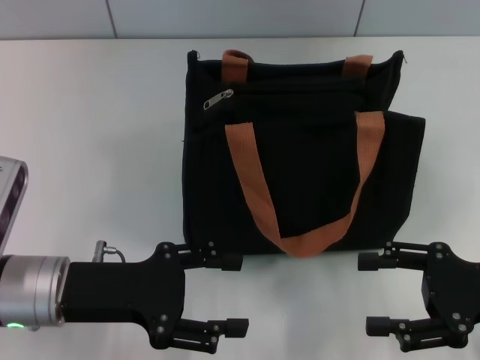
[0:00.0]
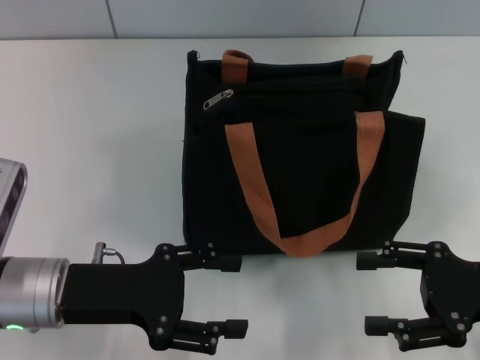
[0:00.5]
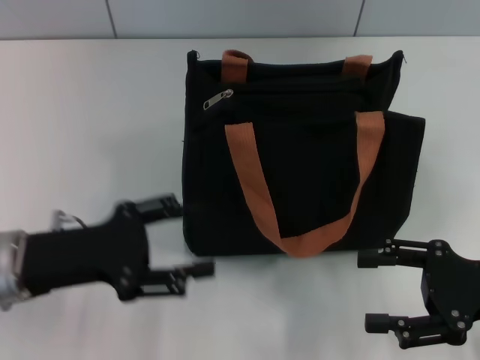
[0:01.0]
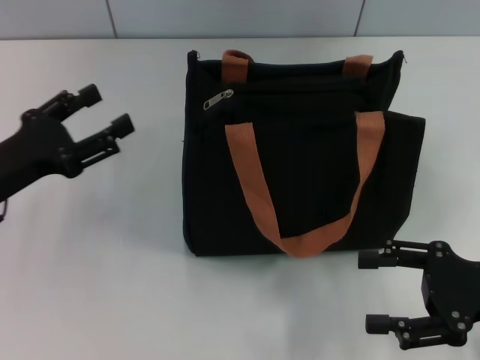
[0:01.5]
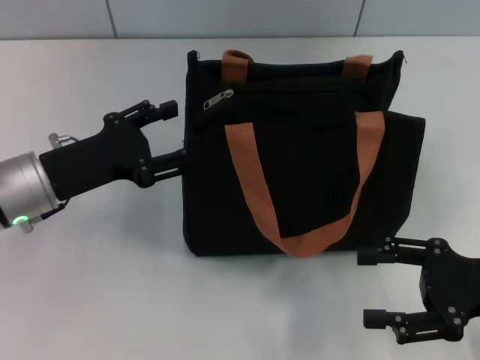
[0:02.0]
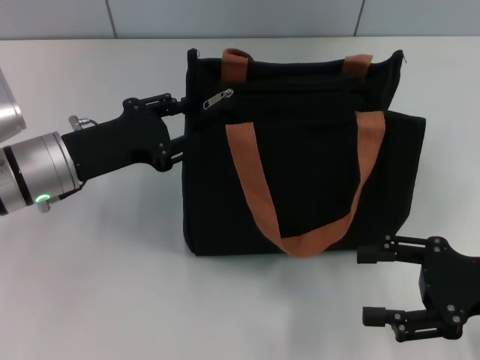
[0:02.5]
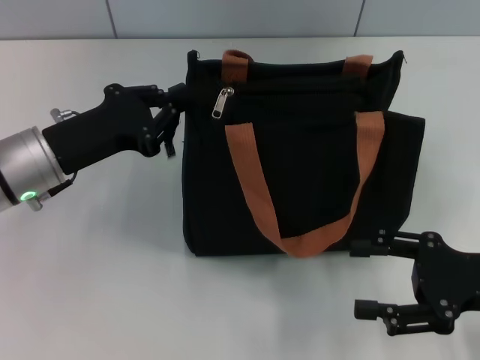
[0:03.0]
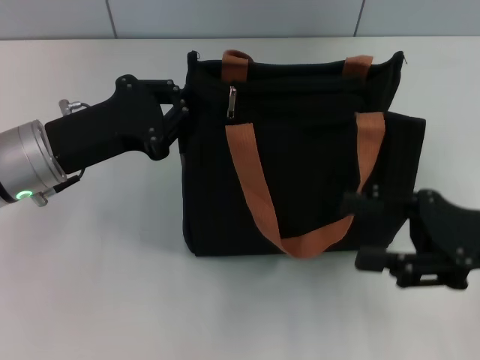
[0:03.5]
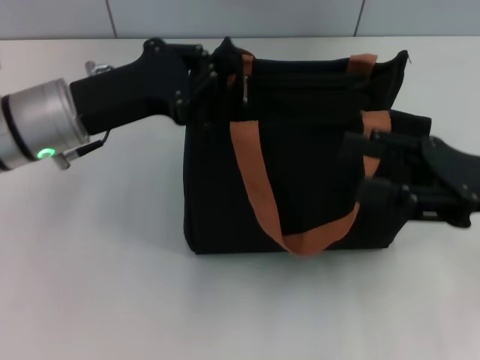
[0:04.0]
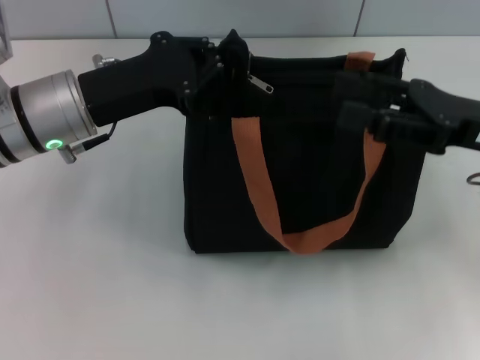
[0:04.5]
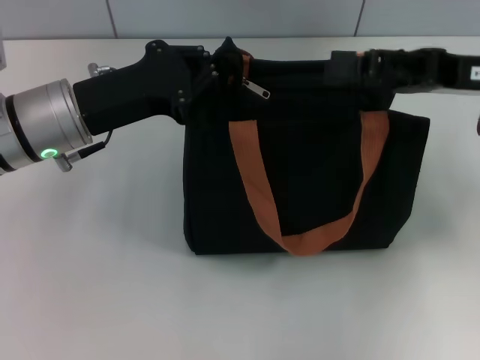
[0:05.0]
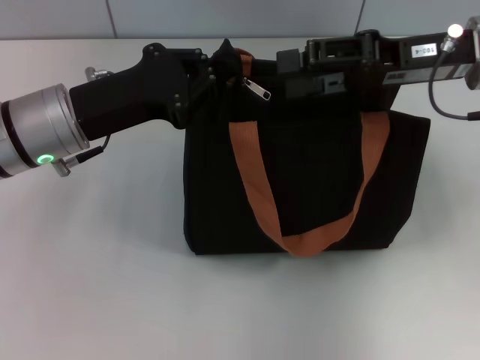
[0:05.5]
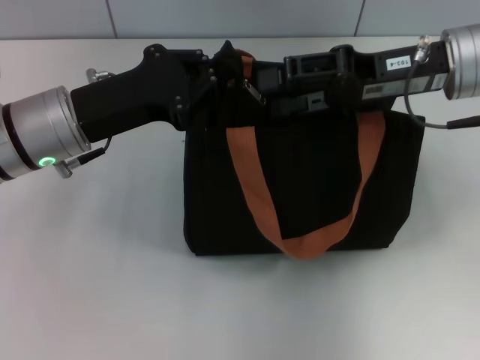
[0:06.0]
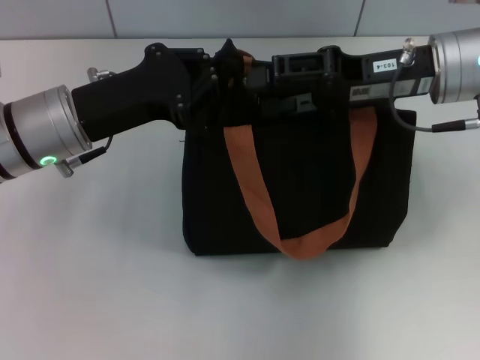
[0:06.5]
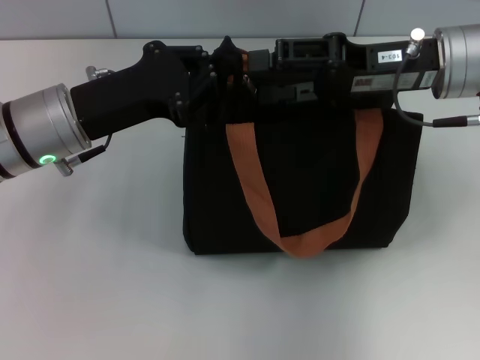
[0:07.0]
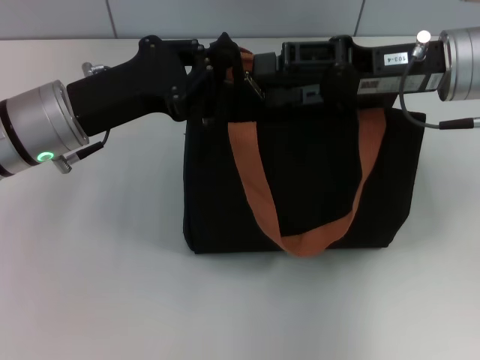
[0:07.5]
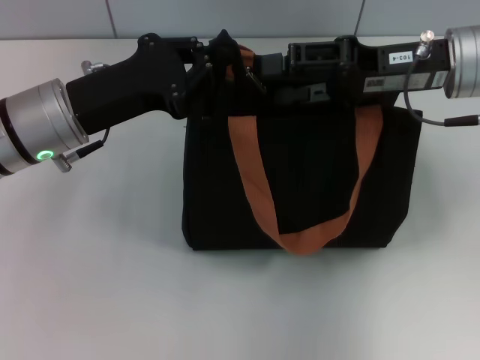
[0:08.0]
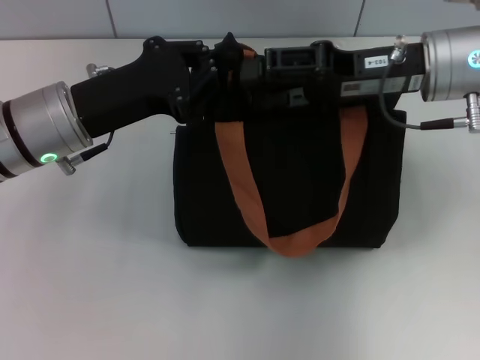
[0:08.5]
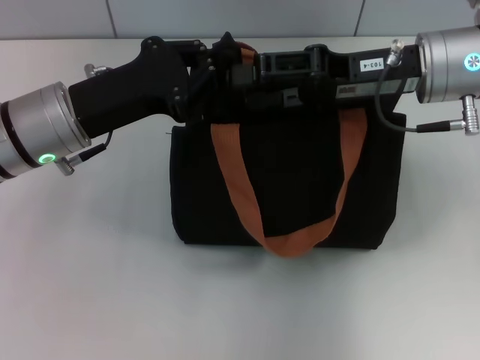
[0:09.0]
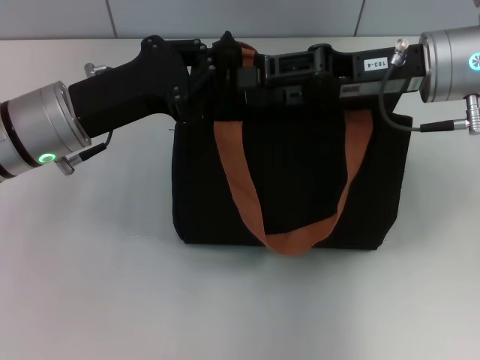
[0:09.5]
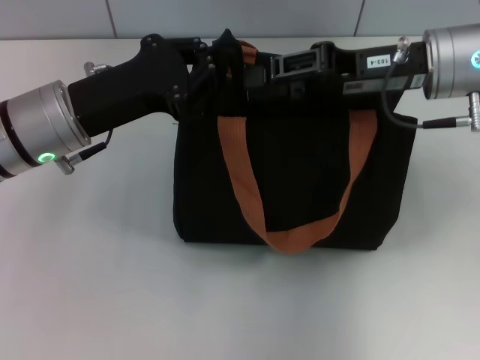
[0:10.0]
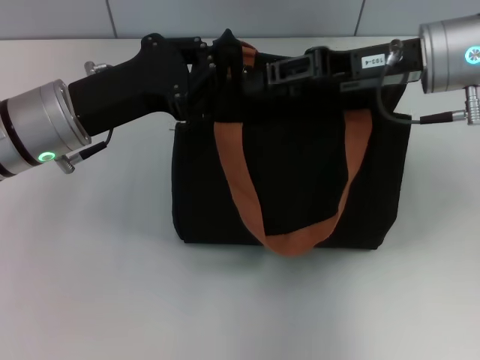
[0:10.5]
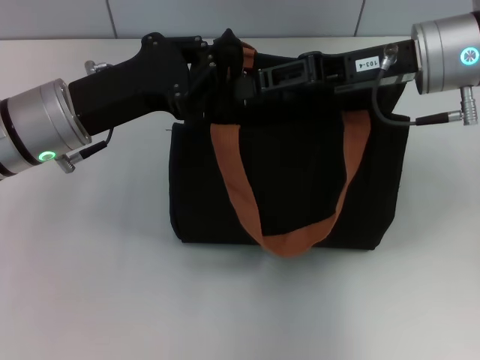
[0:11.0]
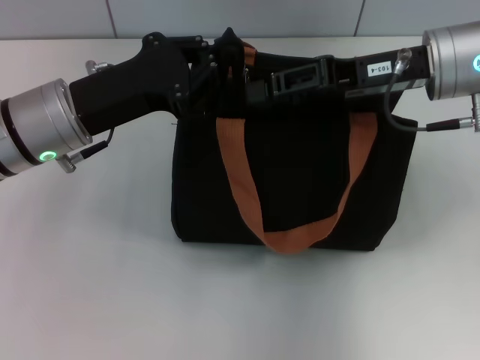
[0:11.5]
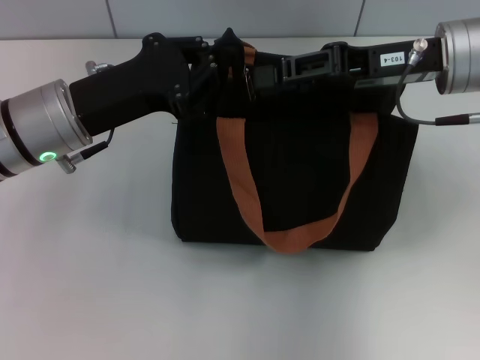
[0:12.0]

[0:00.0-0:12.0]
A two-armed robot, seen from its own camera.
0:00.0 to 0:02.0: The left gripper moves forward, about 5 cm, and moves roughly 10 cm to the left and comes back.
0:02.0 to 0:04.0: Both grippers travel together upward, some 5 cm. The left gripper closes up.
0:04.0 to 0:06.0: The right gripper goes some 15 cm forward, to the left and upward.
0:06.0 to 0:08.0: The grippers make only small movements.
0:08.0 to 0:10.0: The right gripper closes.
0:10.0 to 0:12.0: There are only small adjustments of the grippers.

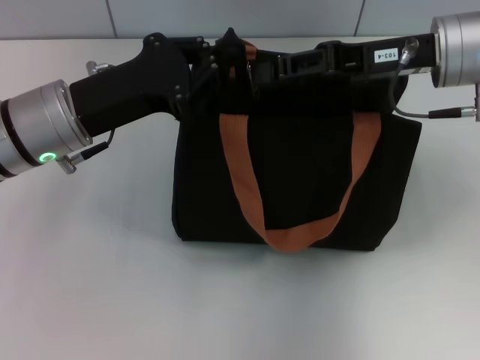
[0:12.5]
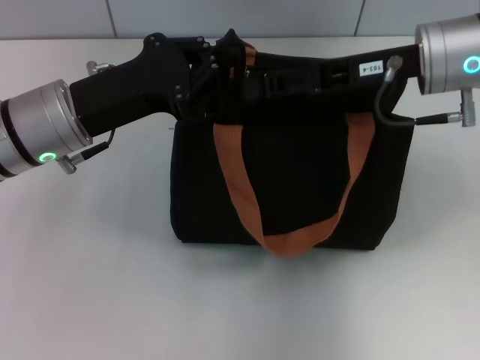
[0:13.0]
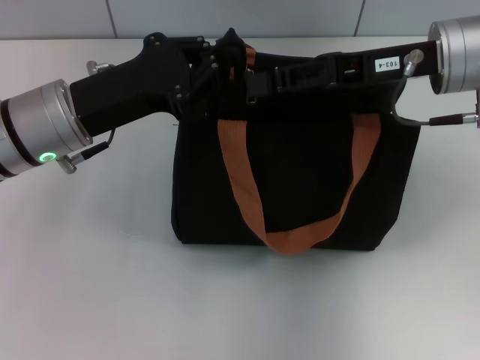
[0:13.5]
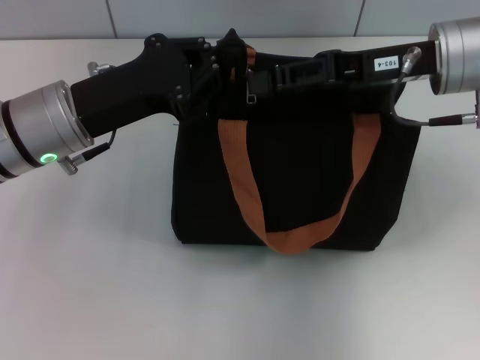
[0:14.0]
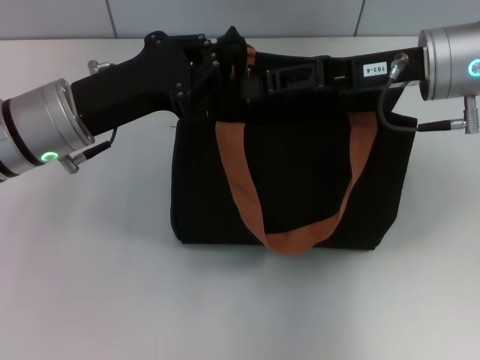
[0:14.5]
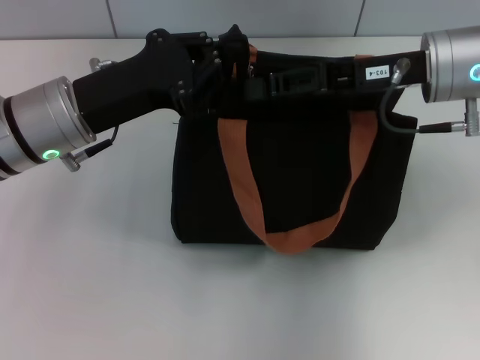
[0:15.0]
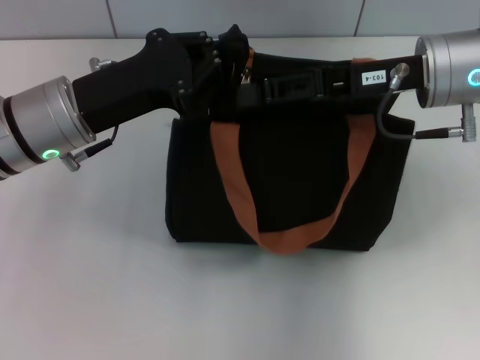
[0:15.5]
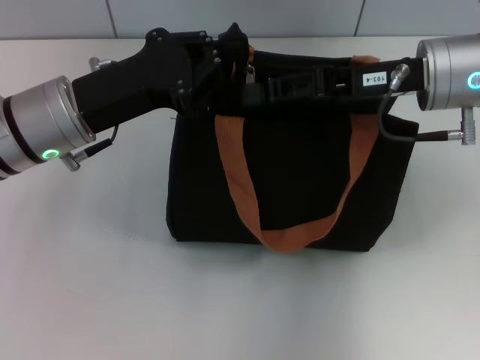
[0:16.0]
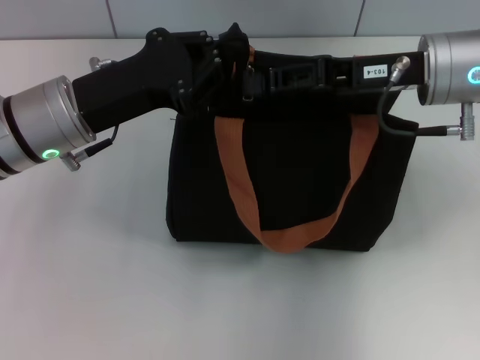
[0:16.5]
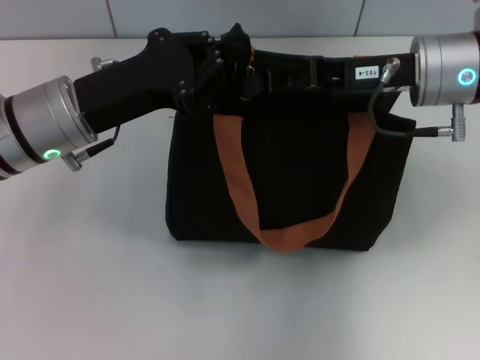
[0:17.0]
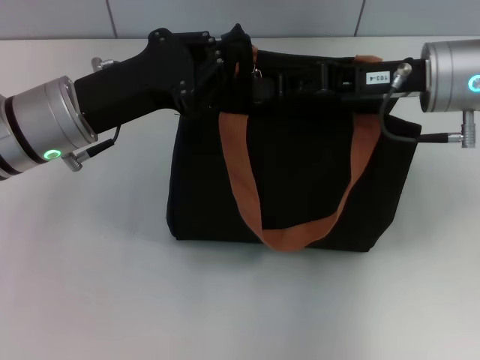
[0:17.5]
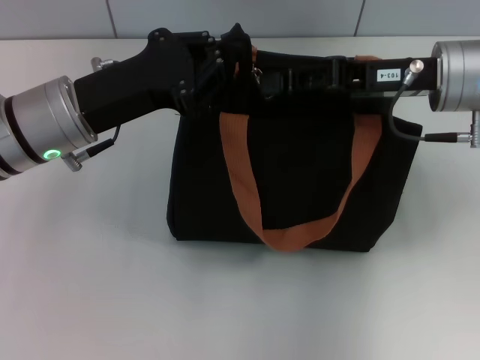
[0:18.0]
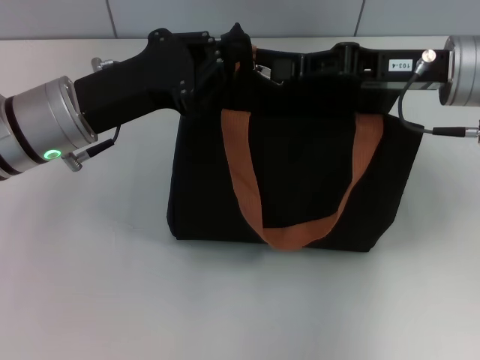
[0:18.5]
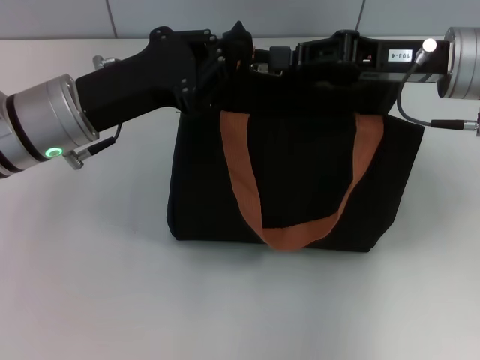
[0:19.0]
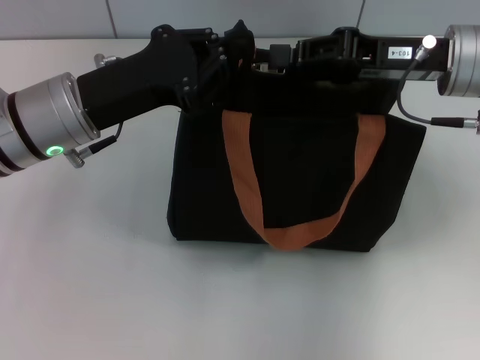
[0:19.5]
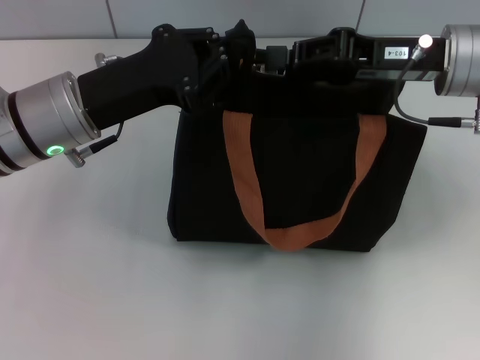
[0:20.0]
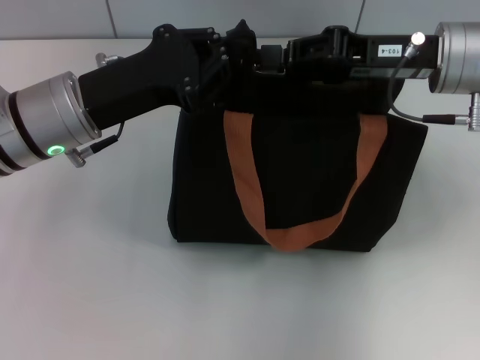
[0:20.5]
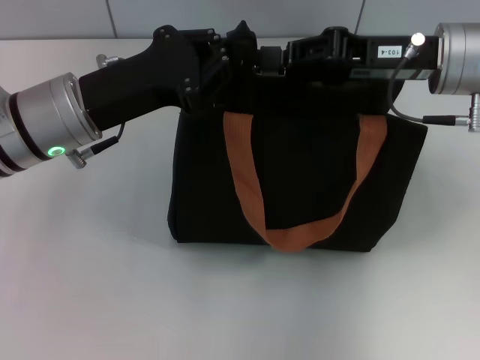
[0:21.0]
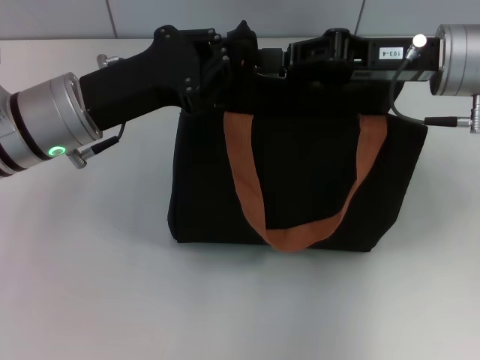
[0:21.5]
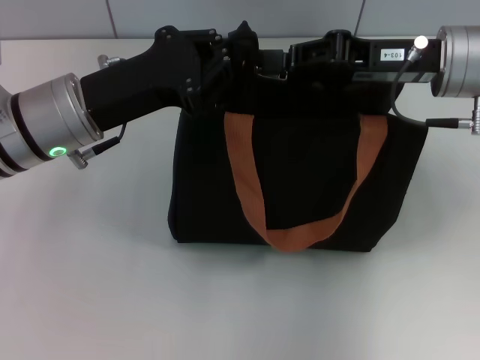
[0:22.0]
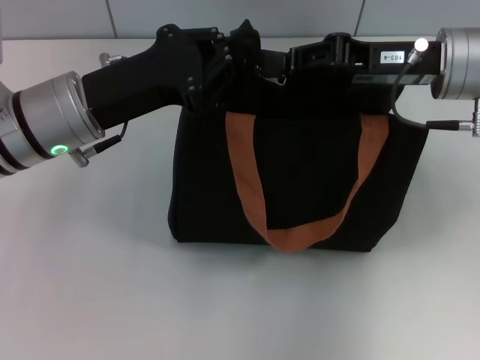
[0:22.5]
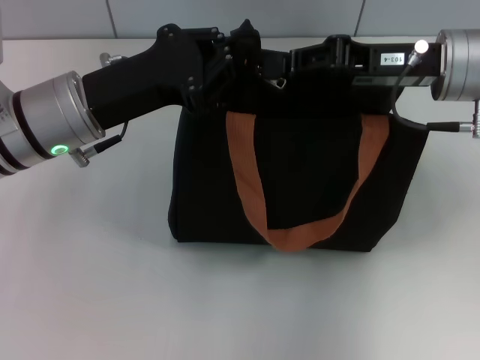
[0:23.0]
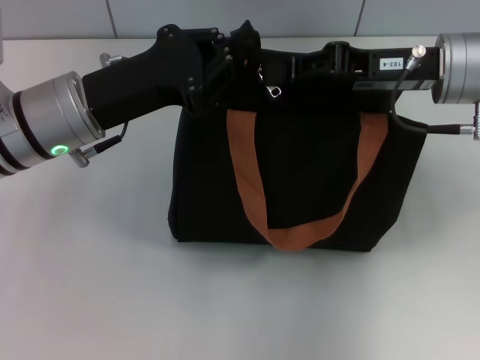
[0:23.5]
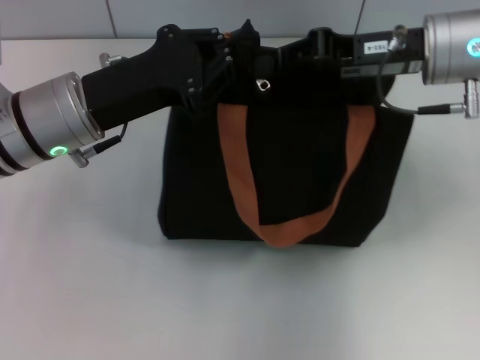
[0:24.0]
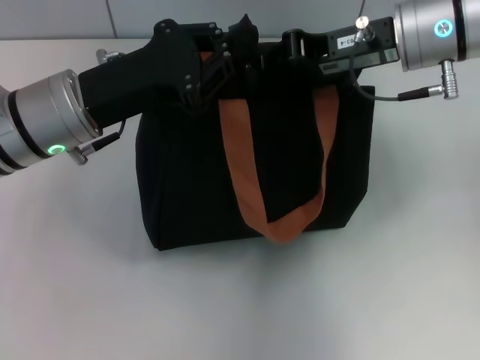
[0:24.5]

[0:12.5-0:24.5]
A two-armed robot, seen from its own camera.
0:12.5 to 0:14.5: There are only small adjustments of the grippers.
0:14.5 to 0:16.5: Both grippers stay put.
0:16.5 to 0:18.5: The grippers move only a little.
0:18.5 to 0:22.5: Both grippers stay about where they are.

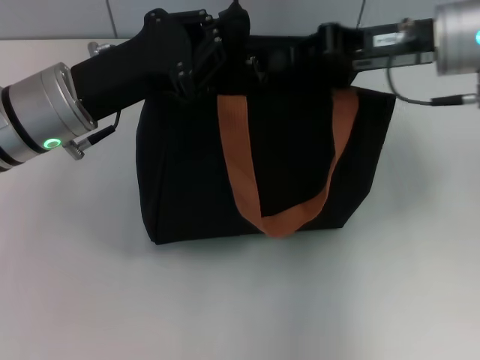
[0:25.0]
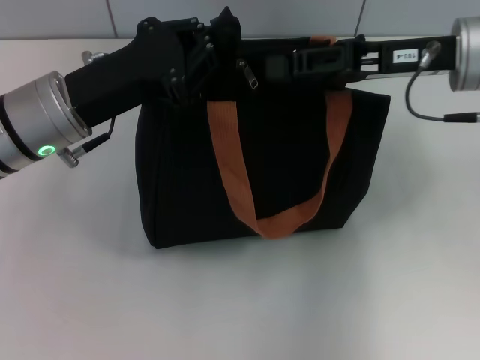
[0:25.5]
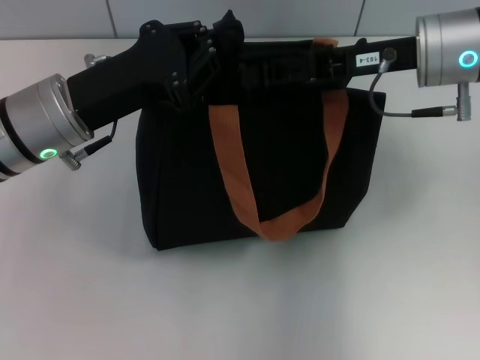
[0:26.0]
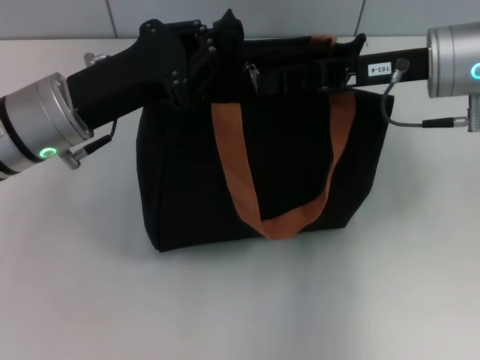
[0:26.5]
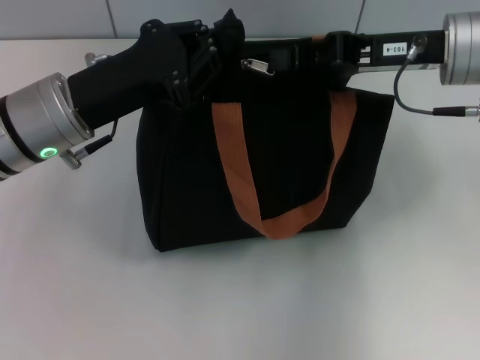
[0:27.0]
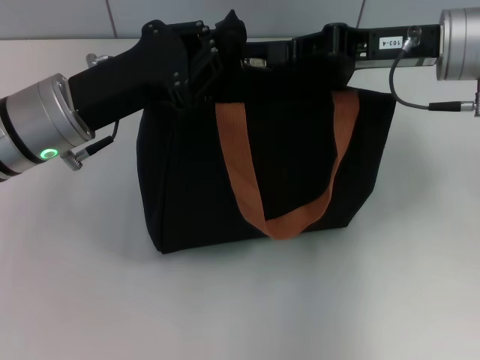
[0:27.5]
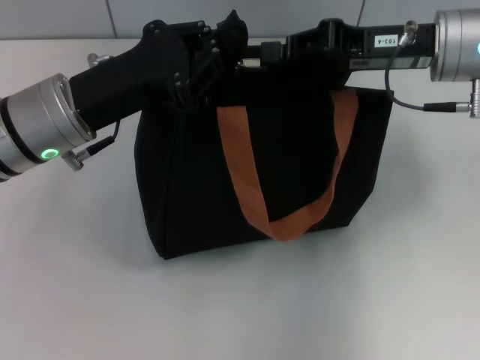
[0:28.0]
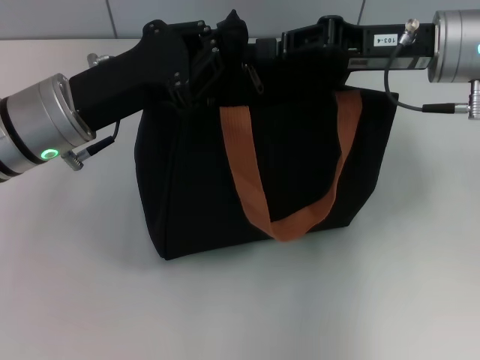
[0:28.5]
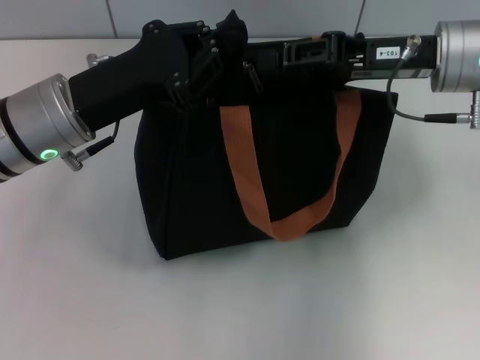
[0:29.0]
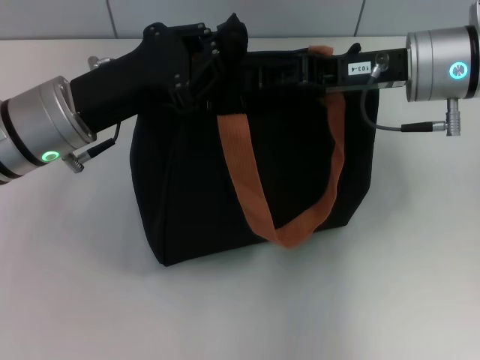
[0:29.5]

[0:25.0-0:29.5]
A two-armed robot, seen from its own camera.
0:25.0 to 0:27.0: The right gripper opens and closes again.
0:27.0 to 0:29.5: The grippers make only small movements.
